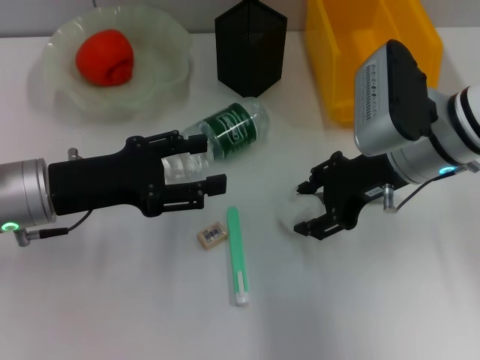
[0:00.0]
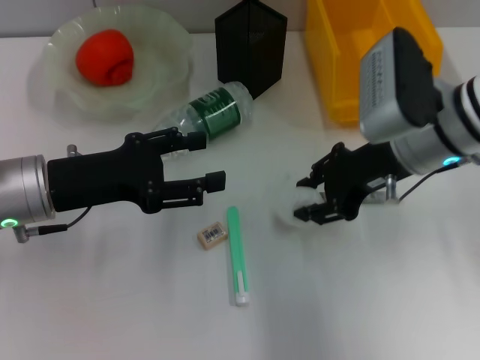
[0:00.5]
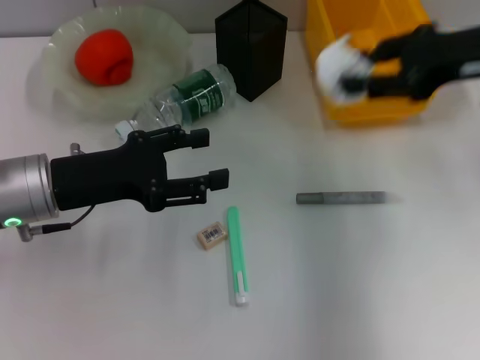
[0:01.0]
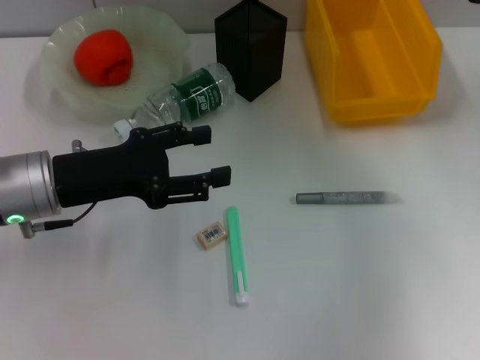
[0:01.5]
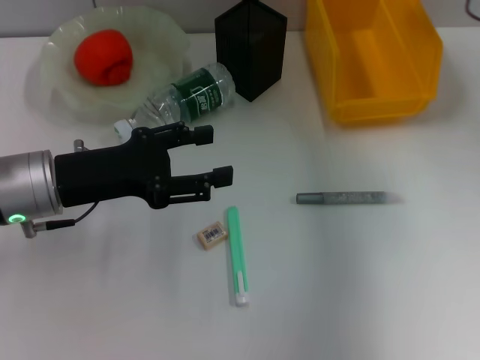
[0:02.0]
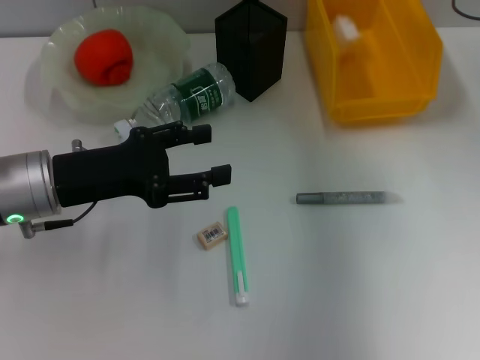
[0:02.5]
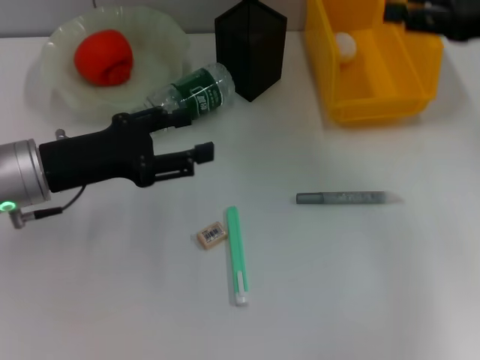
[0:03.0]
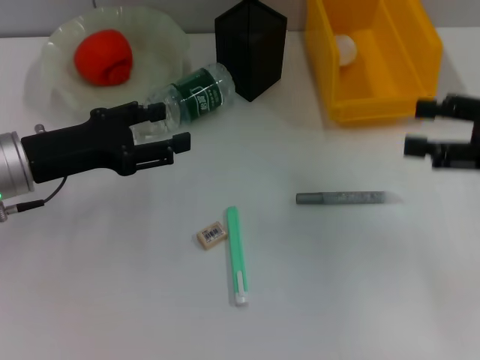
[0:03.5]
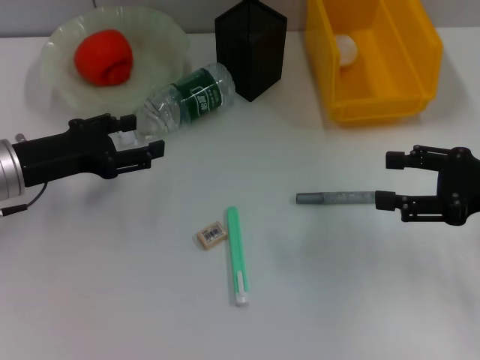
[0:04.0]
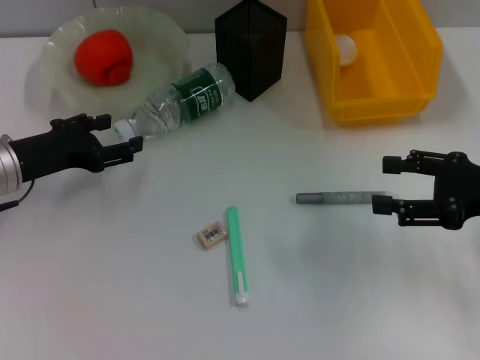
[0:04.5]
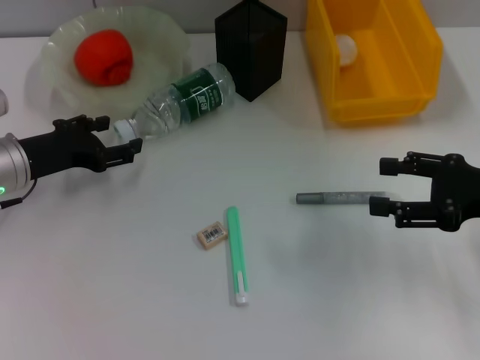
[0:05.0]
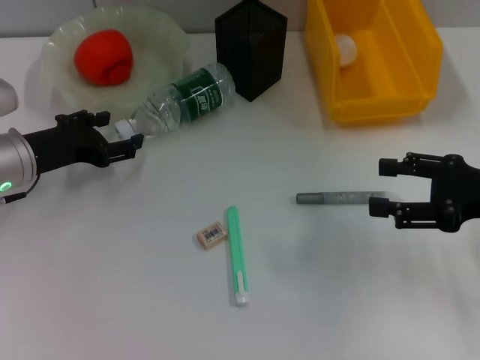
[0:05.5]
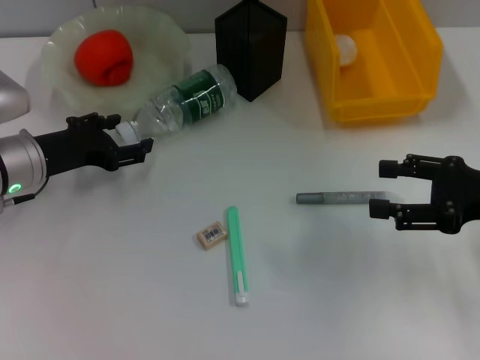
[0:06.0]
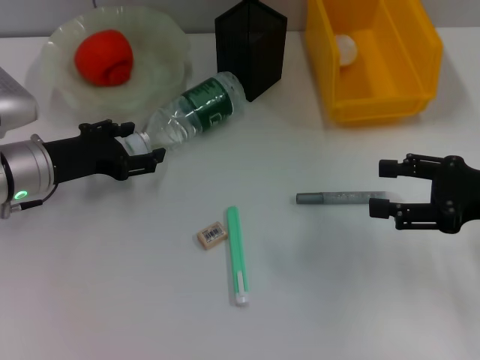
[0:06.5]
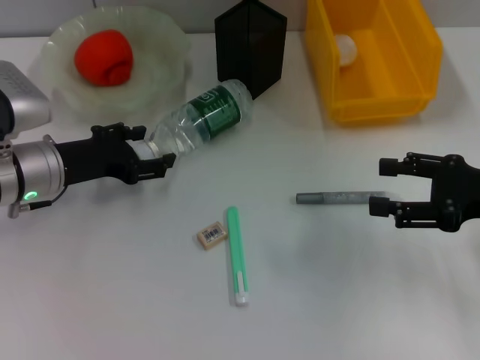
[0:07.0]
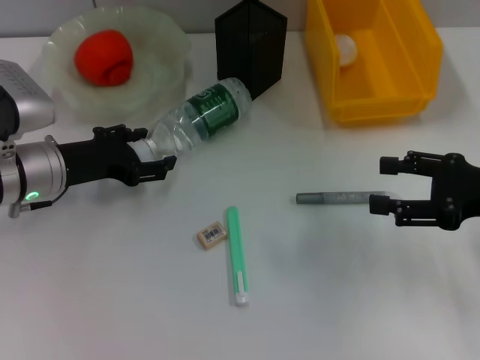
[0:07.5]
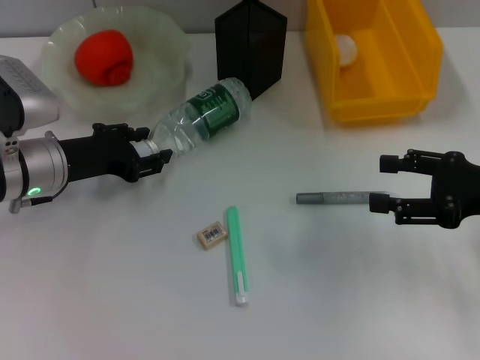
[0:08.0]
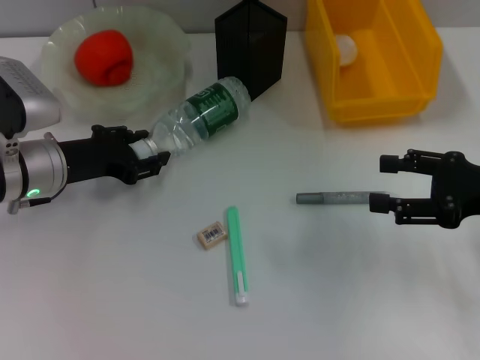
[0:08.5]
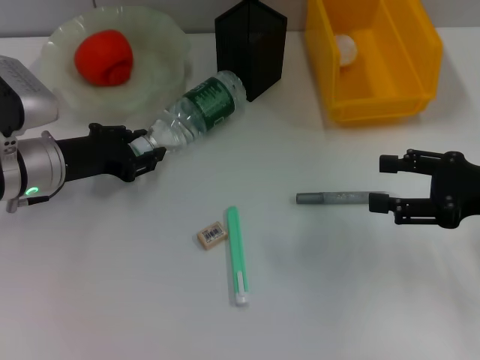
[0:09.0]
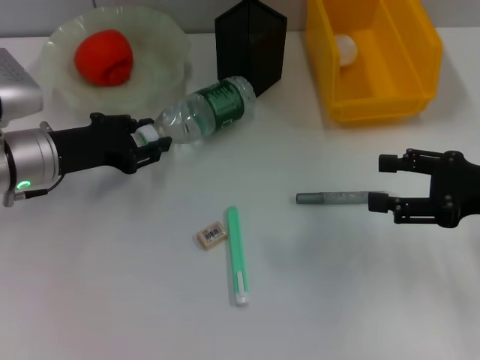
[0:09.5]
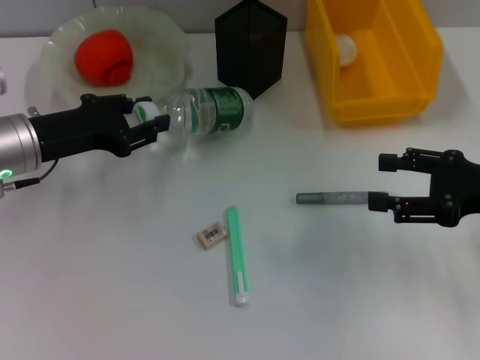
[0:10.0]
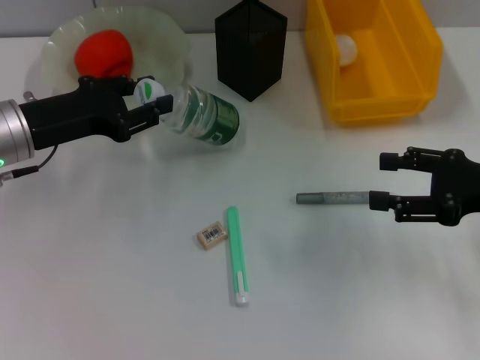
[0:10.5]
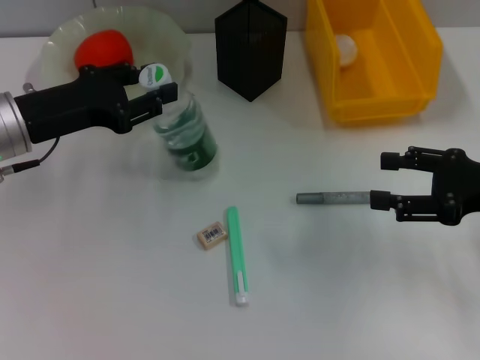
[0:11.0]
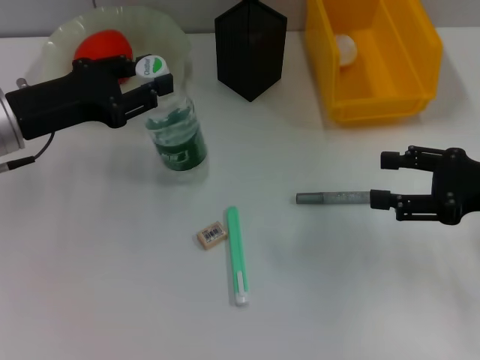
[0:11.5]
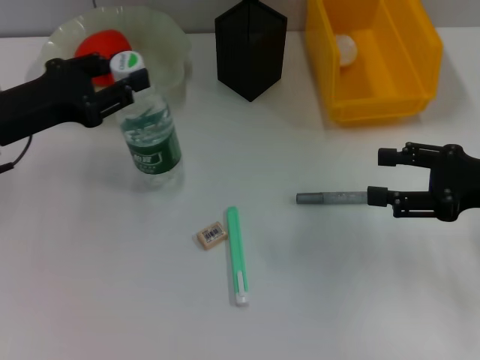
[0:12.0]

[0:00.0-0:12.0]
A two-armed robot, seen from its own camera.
Step, 0:00.5 to 0:03.0: Place the paper ball into the trash can with the right hand.
Step, 0:03.5 to 0:08.5: Grab the water bottle with the left hand.
0:00.0 to 0:02.0: The right gripper travels to the right, forward and upward by approximately 15 cm.
0:02.0 to 0:04.0: The right gripper travels backward and downward by approximately 20 cm, and opens; the left gripper moves approximately 5 cm.
0:04.0 to 0:12.0: The grippers move only a little.

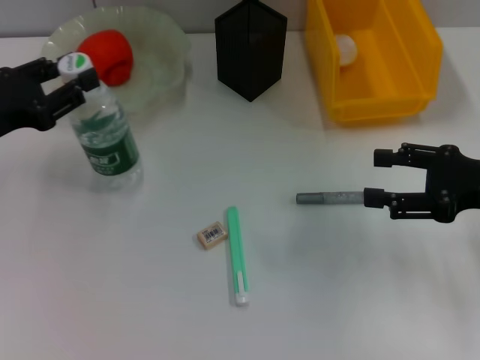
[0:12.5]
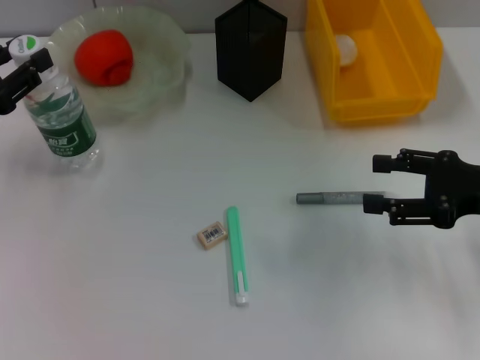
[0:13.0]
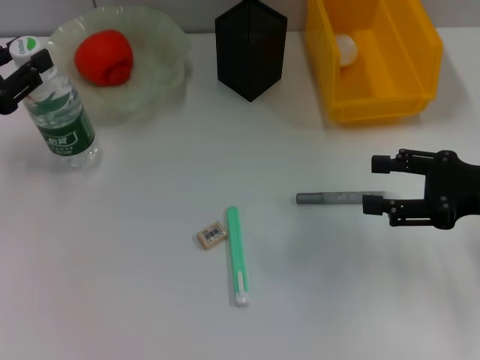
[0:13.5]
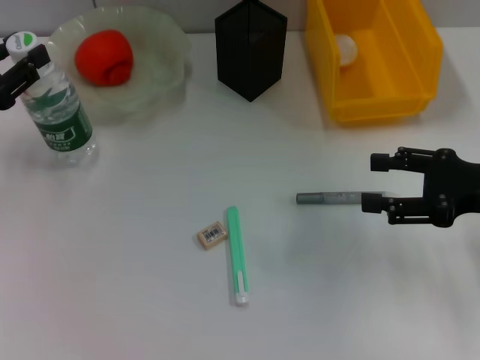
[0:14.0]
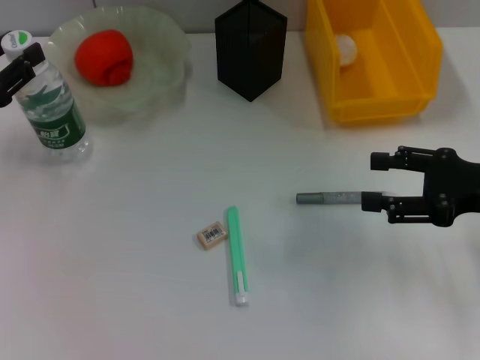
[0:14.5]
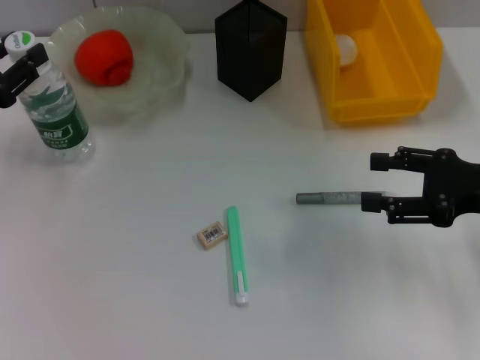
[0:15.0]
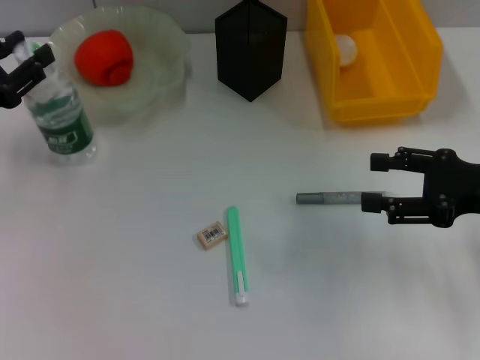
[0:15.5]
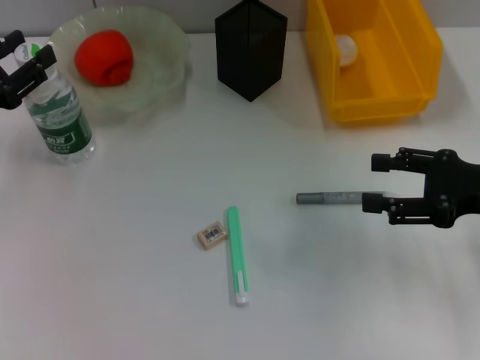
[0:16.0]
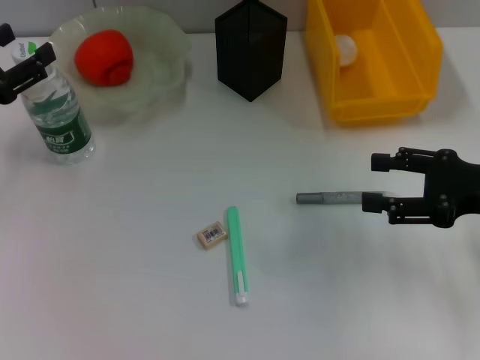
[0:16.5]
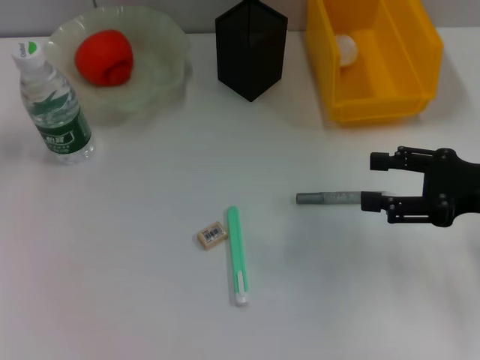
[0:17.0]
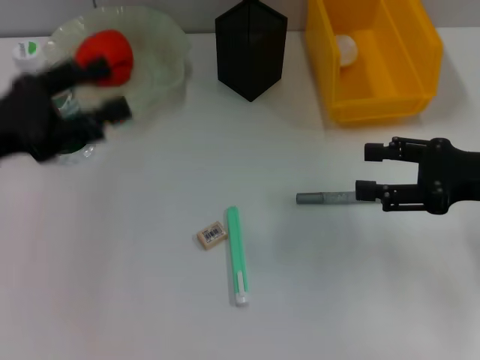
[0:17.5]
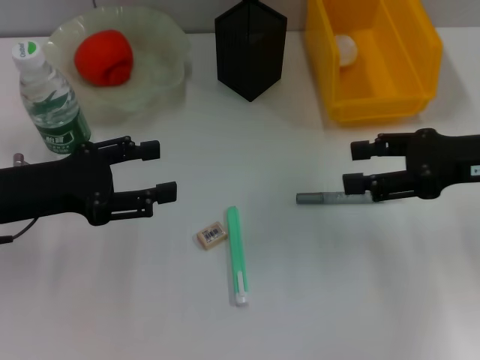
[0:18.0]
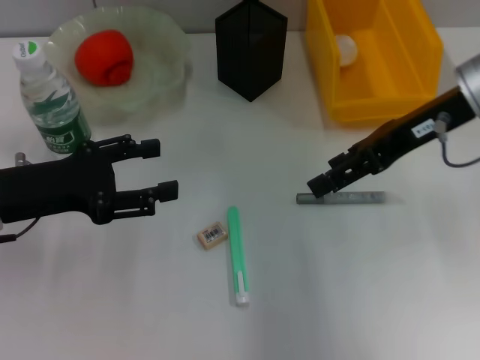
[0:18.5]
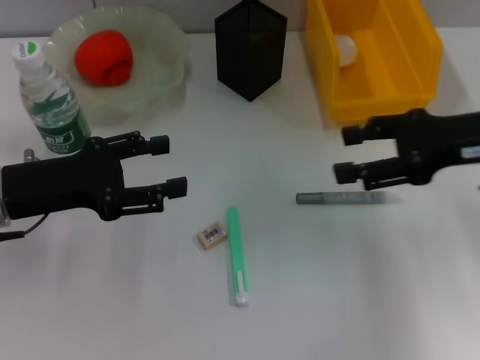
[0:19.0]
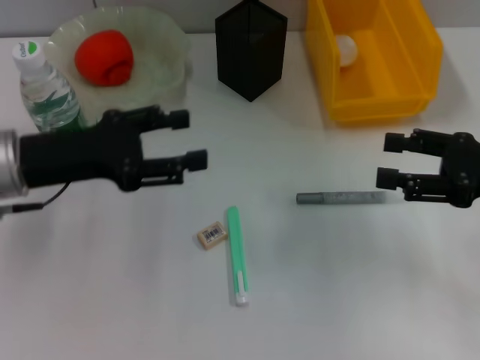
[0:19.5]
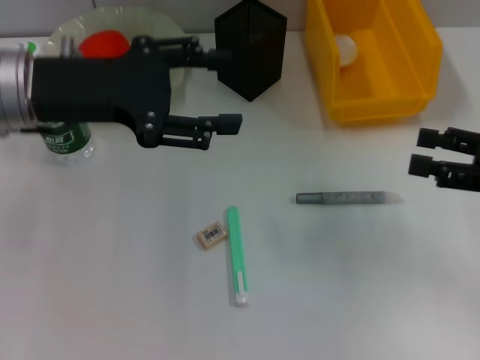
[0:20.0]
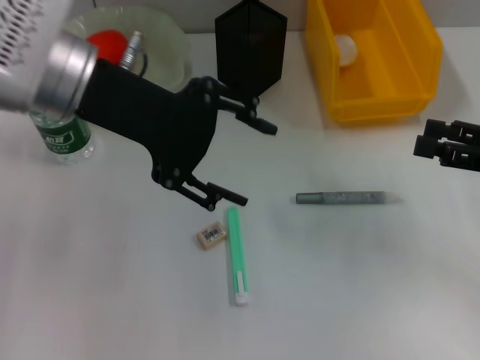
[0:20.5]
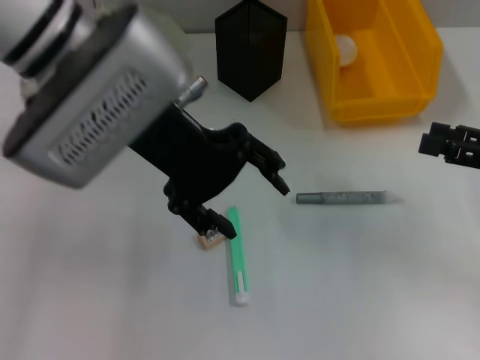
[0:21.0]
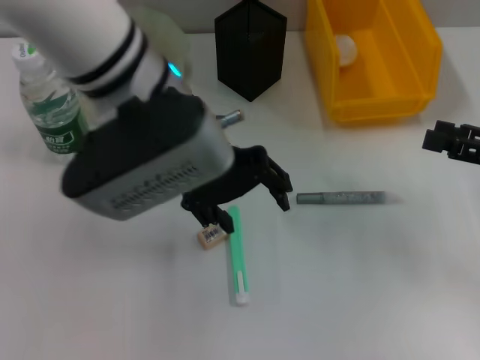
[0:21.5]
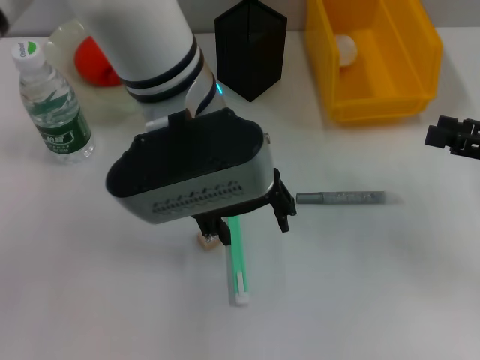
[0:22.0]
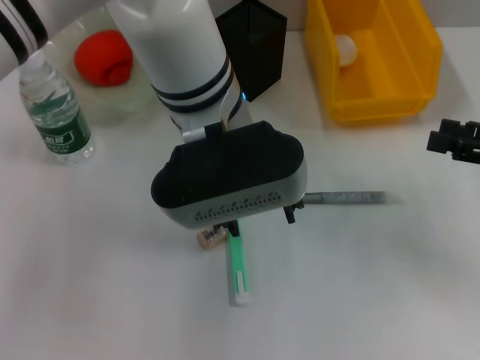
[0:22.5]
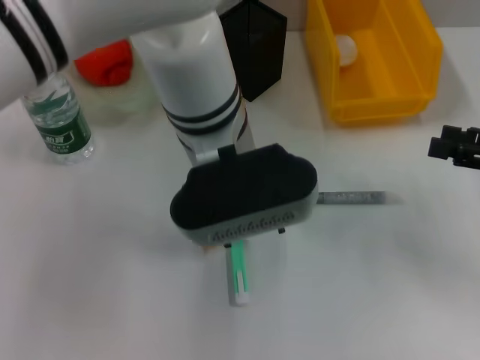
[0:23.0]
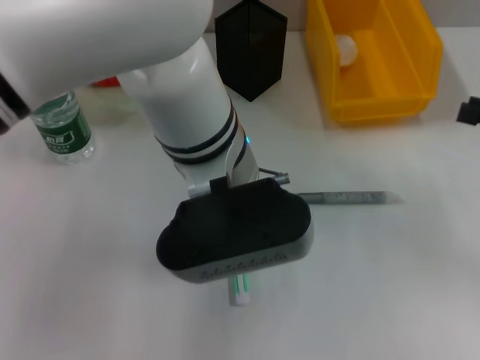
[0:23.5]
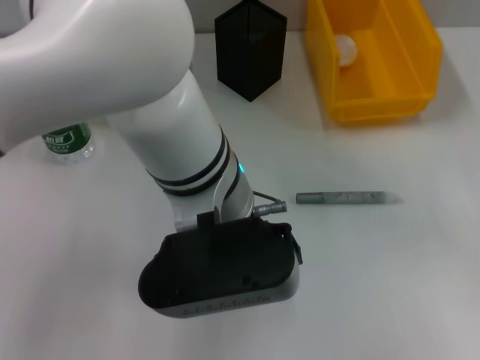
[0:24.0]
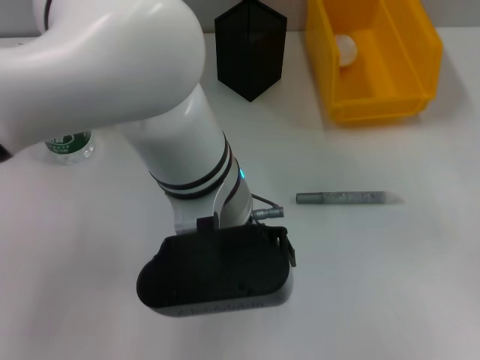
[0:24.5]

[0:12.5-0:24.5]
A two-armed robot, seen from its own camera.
Step, 0:12.5 to 0:16.0: Place the water bottle on the table with the left hand.
0:12.5 to 0:14.5: There are only small adjustments of the grippers.
0:14.5 to 0:16.5: Both grippers stay about where they are.
0:16.5 to 0:18.5: The right gripper heads upward, to the left and forward, covering approximately 15 cm; the left gripper shifts some 5 cm to the right.
0:18.5 to 0:20.5: The left gripper heads upward, to the right and forward, covering about 20 cm. Meanwhile the right gripper moves to the right, downward and backward, about 20 cm.
0:20.5 to 0:22.5: The left gripper goes some 15 cm to the right.
0:22.5 to 0:24.5: The right gripper heads upward, covering approximately 5 cm. The left gripper goes roughly 5 cm backward.

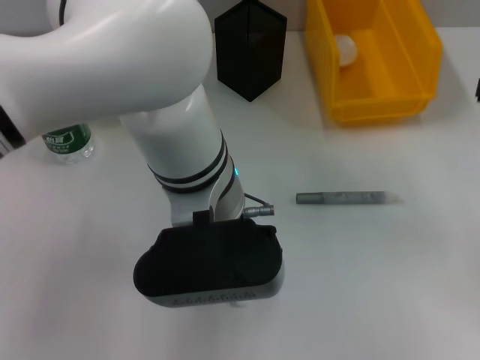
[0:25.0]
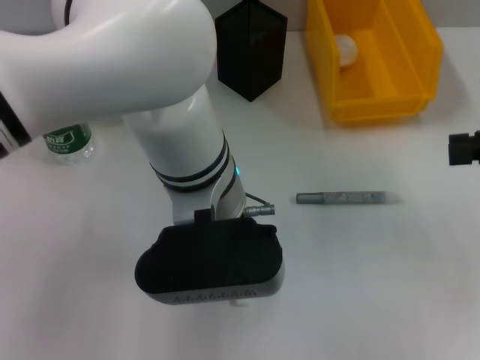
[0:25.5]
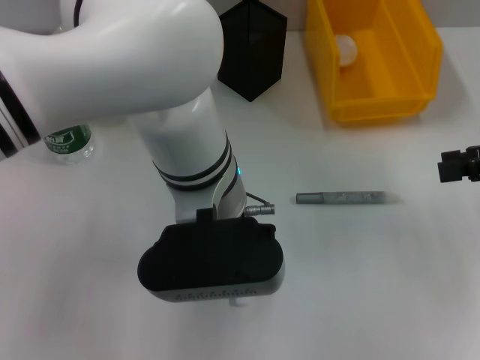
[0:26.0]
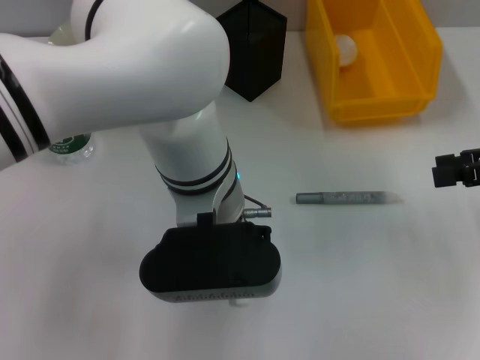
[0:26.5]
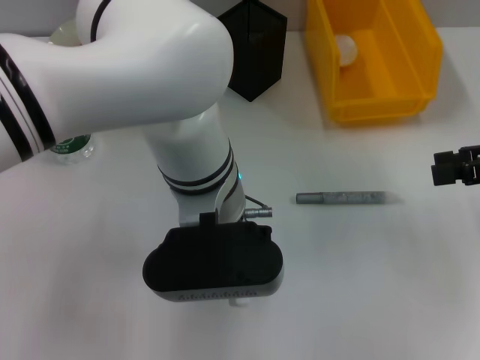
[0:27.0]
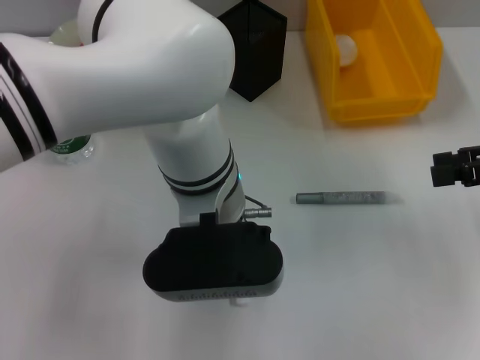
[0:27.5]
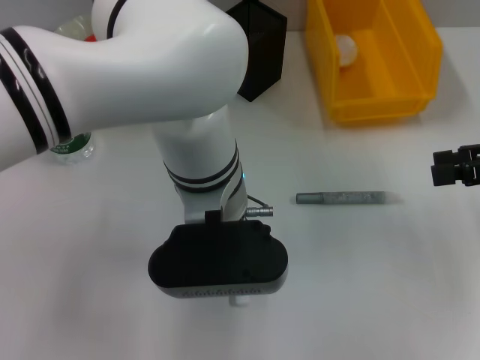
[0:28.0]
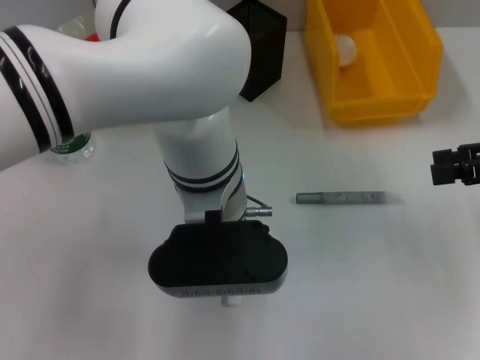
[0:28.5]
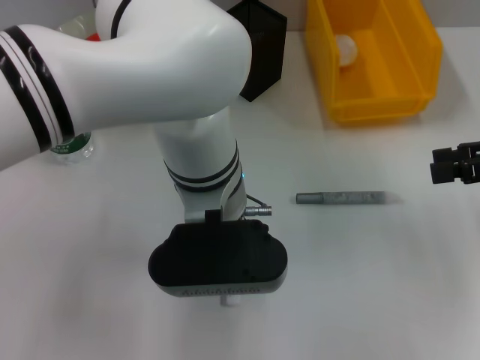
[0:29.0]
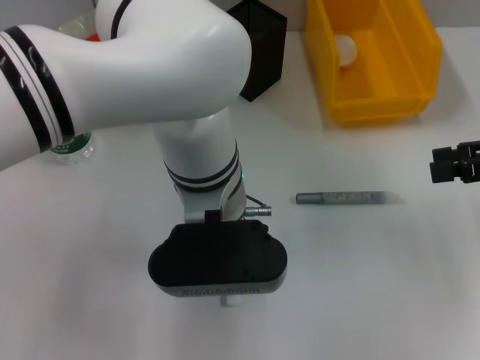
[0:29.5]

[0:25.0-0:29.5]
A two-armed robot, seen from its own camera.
0:25.0 to 0:27.0: The left gripper closes up.
0:27.0 to 0:29.5: Neither gripper changes place.
